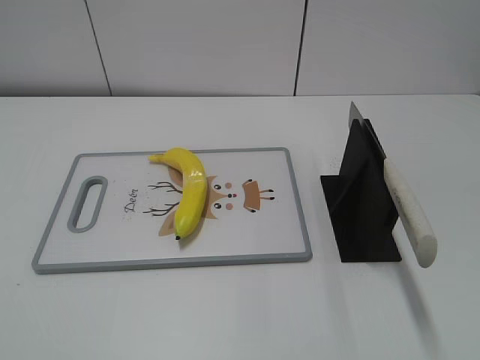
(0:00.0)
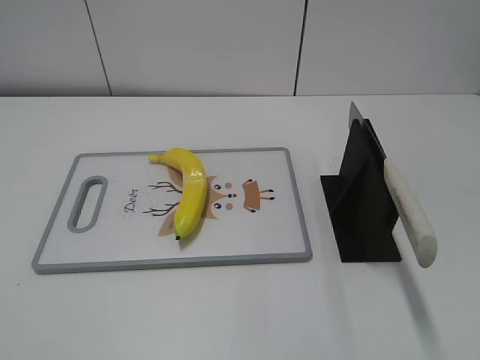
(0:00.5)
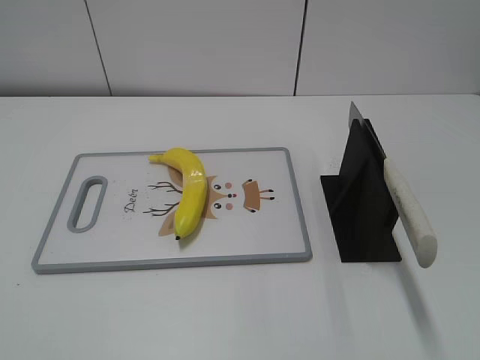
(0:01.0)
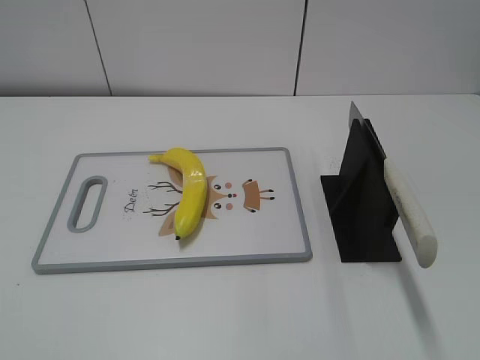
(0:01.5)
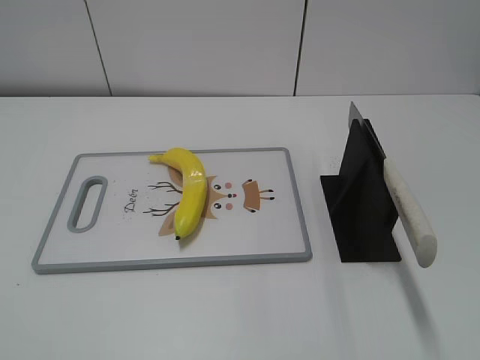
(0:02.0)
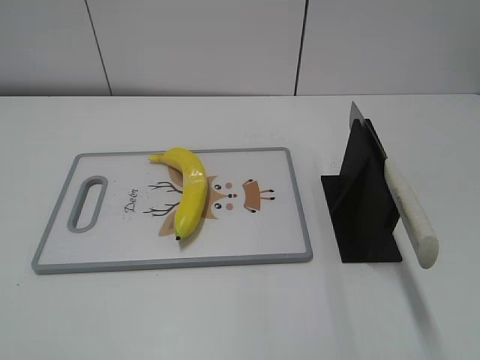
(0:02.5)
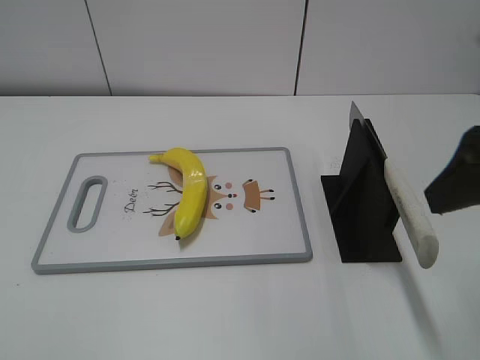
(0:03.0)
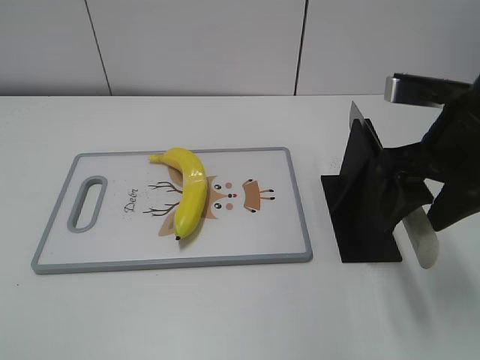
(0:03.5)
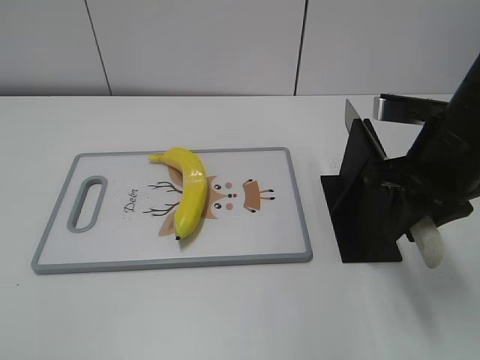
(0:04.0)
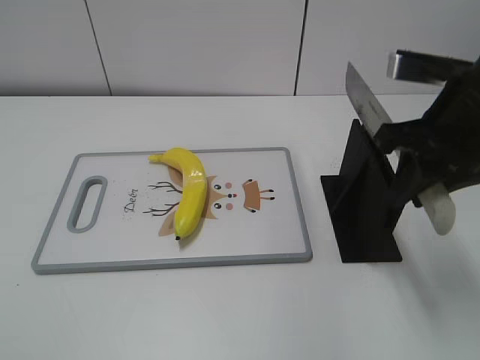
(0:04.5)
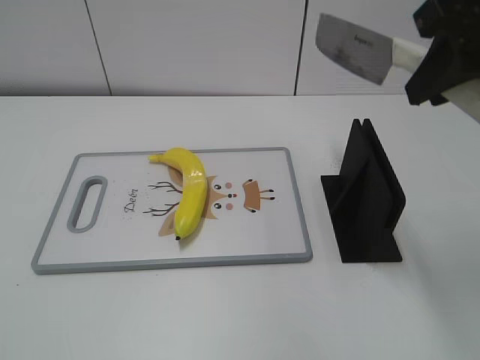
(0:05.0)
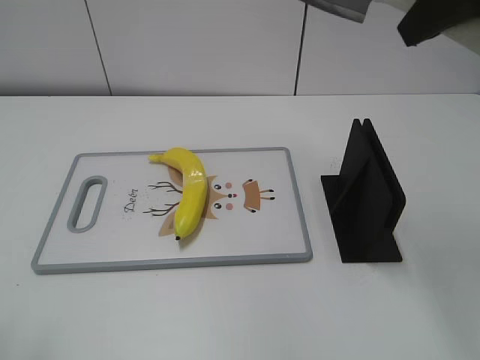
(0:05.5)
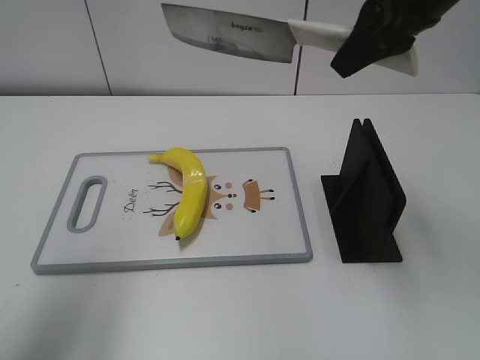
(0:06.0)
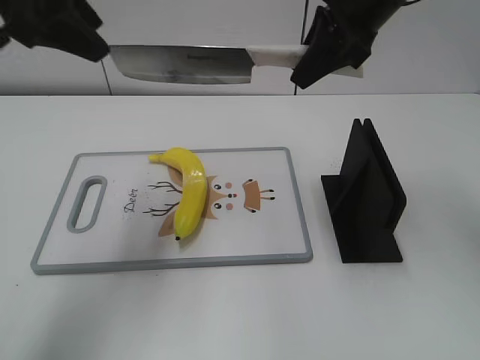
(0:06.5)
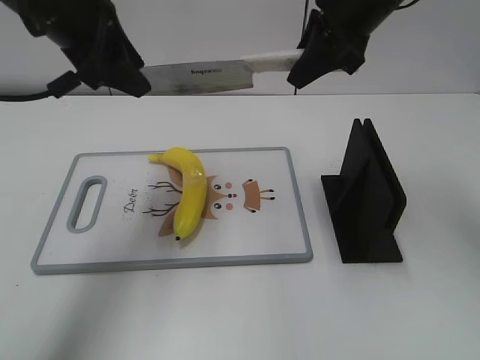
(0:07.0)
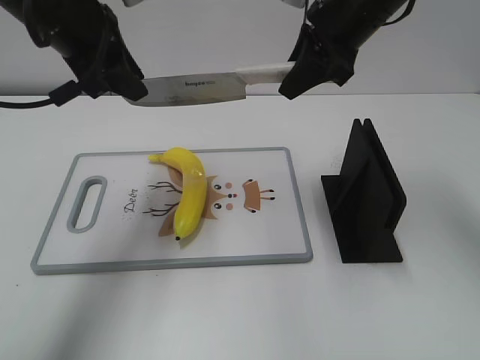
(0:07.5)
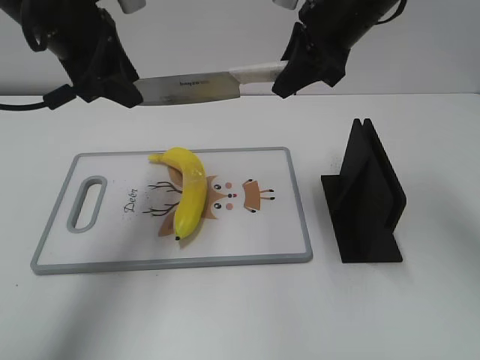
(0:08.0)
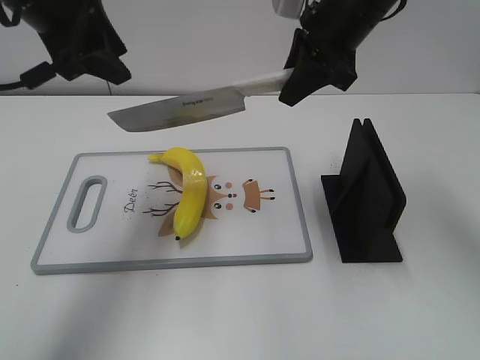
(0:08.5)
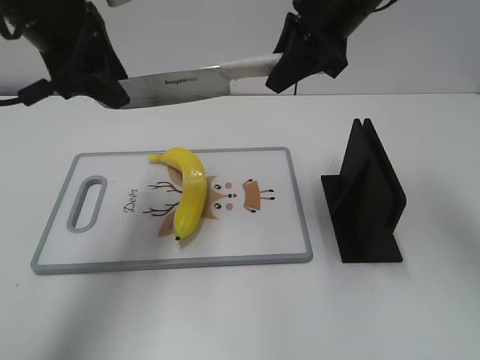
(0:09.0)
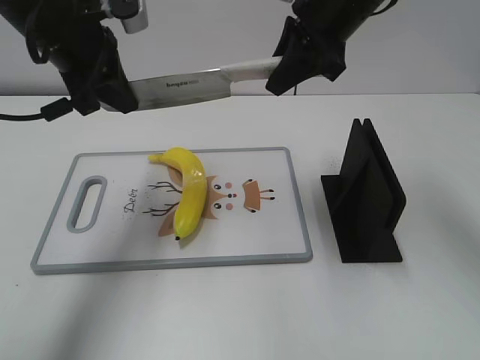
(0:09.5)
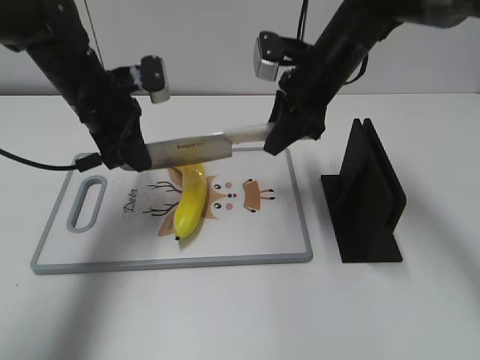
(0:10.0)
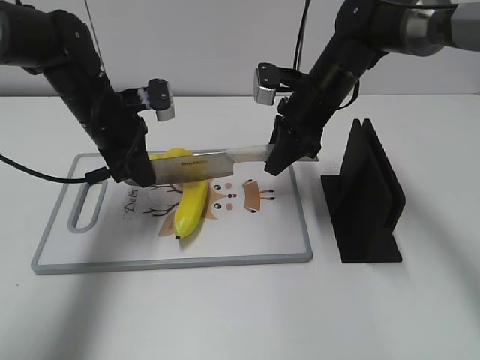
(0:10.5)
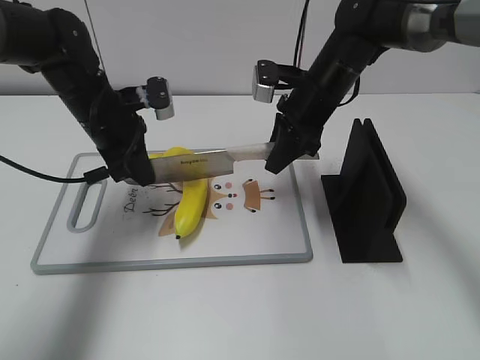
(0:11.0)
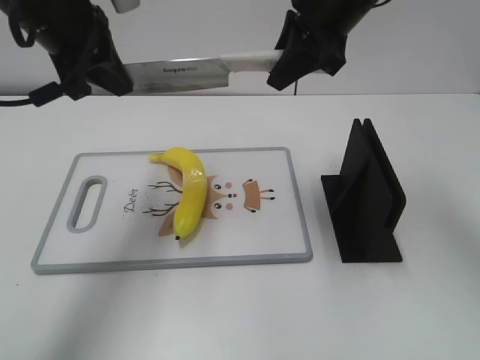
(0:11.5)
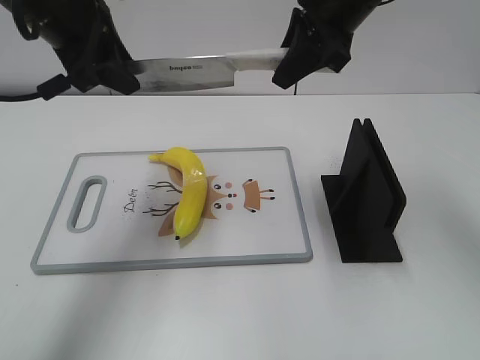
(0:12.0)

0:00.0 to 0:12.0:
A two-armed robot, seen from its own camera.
Task of the whole recording: cut plastic banana.
Step, 0:00.0 to 0:04.5: Grab the knife handle with your right hand.
Step, 0:05.0 to 0:08.5: Hold the blade with your left hand.
0:02.0 to 0:04.0: The right gripper goes roughly 25 cm forward, and closes up.
0:04.0 to 0:06.0: The right gripper shifts about 15 cm upward and forward, while the left gripper goes some 25 cm forward and upward.
0:06.0 to 0:08.0: The right gripper is displaced forward and downward by roughly 10 cm. Meanwhile the left gripper heads forward, to the right and downward, covering roughly 20 cm.
0:08.0 to 0:10.0: The grippers both shift downward by approximately 10 cm. The left gripper closes up.
0:10.0 to 0:12.0: Both grippers move upward, roughly 10 cm. The left gripper opens.

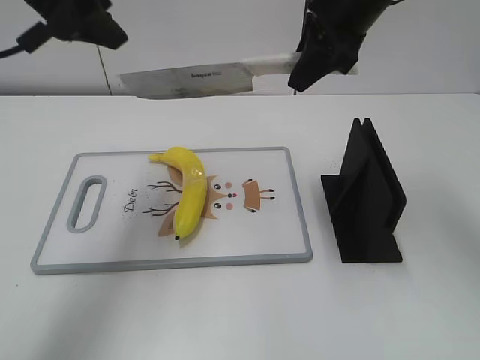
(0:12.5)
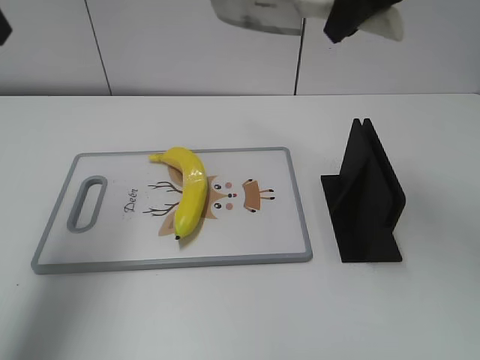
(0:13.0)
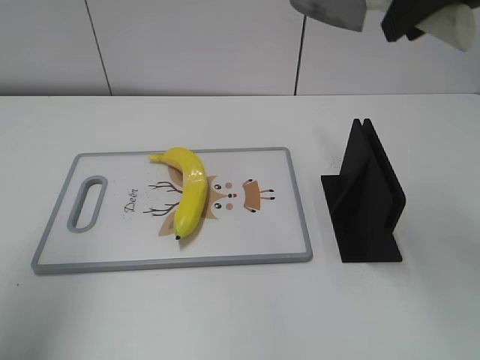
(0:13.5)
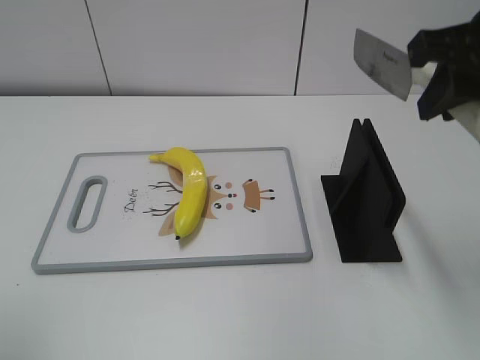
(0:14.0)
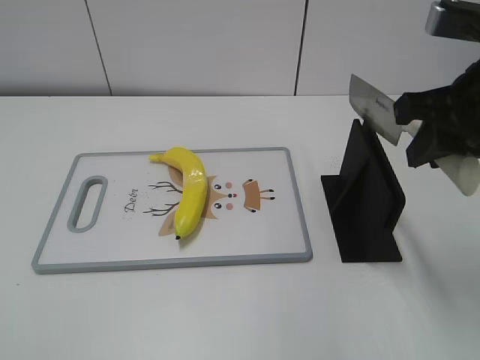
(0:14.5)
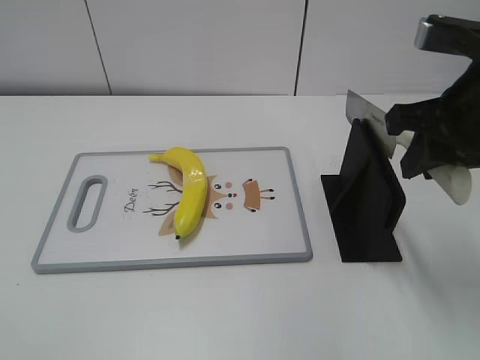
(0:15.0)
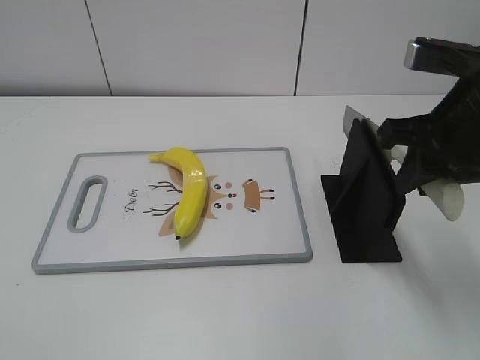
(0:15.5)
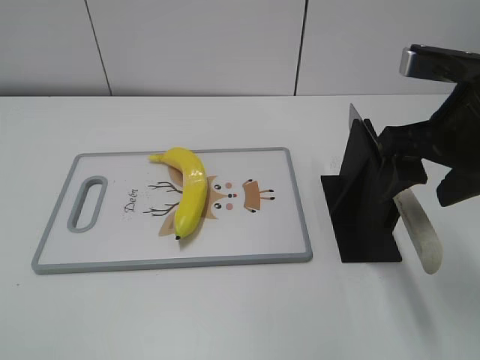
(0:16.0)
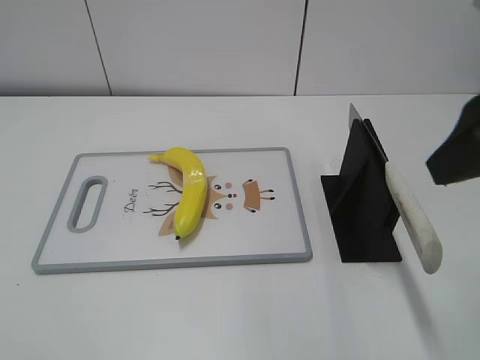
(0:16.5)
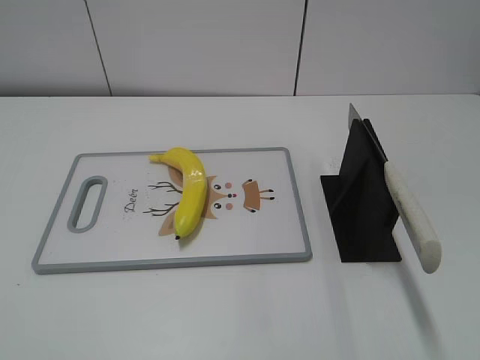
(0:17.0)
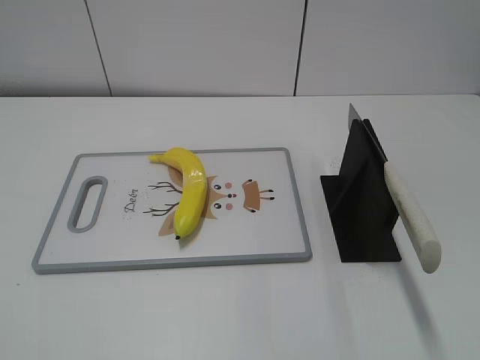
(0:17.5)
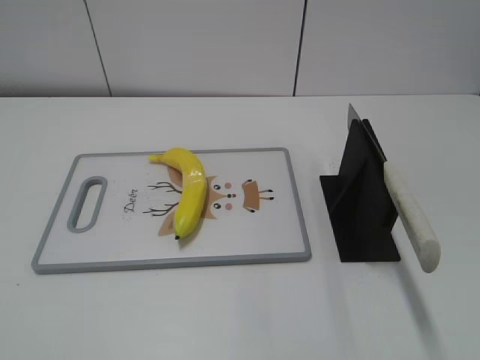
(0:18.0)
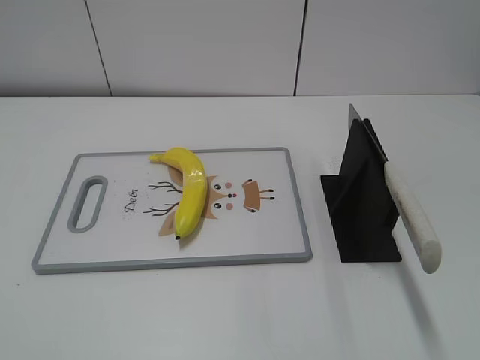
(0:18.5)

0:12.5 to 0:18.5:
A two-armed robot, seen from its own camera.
Task of the whole recording: cut plastic banana.
Step, 0:13.0 to 0:14.5: Secure the blade with your left hand.
Step, 0:15.0 to 0:18.5: Place the knife on the storage rack with your right hand.
0:12.5 to 0:14.5: The left gripper travels backward by about 30 cm; the right gripper is displaced backward and to the right by approximately 15 cm.
0:14.5 to 0:16.5: The right gripper shifts approximately 5 cm backward, and opens.
0:16.5 to 0:18.5: The right gripper moves backward, roughly 20 cm.
